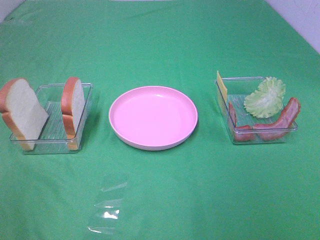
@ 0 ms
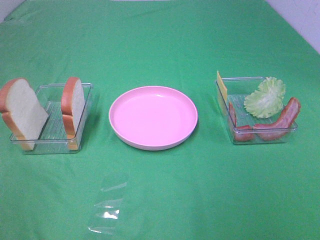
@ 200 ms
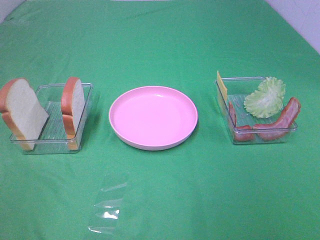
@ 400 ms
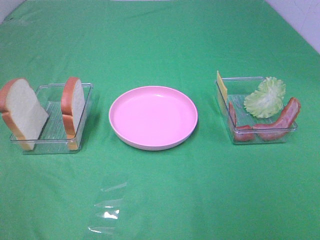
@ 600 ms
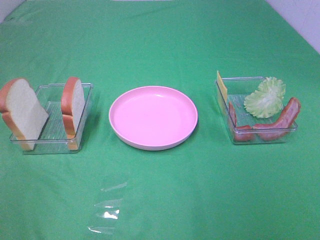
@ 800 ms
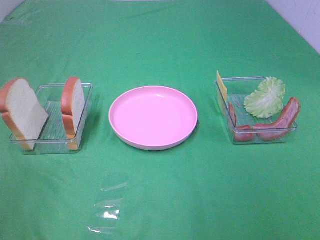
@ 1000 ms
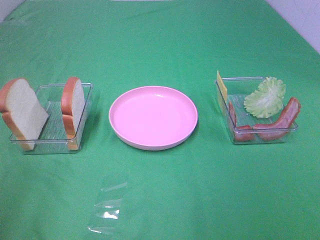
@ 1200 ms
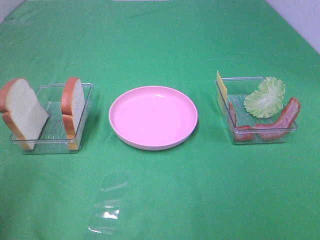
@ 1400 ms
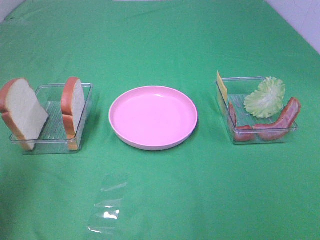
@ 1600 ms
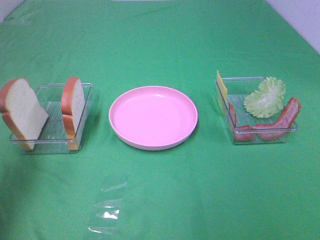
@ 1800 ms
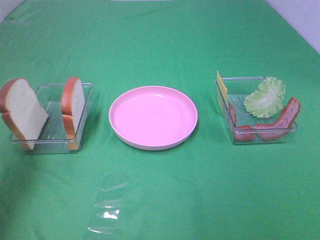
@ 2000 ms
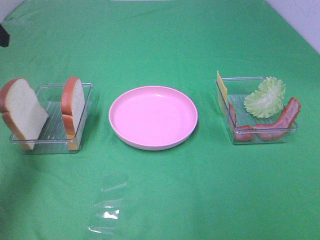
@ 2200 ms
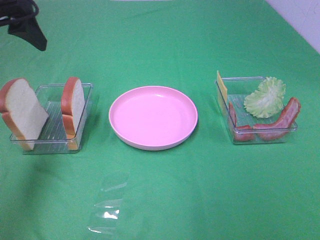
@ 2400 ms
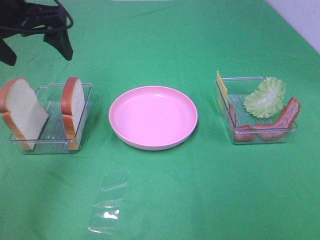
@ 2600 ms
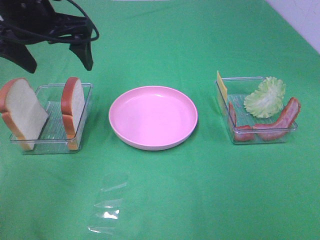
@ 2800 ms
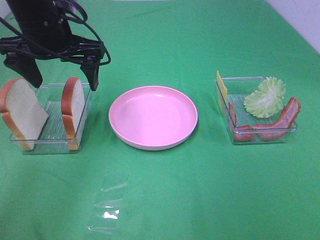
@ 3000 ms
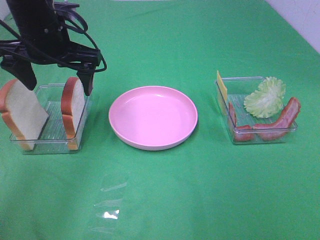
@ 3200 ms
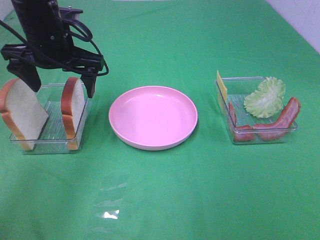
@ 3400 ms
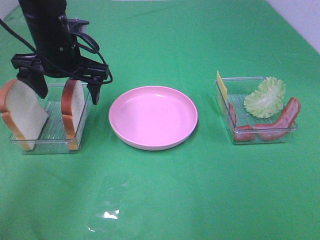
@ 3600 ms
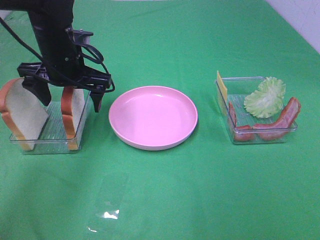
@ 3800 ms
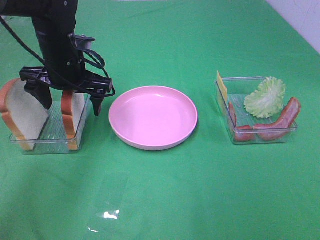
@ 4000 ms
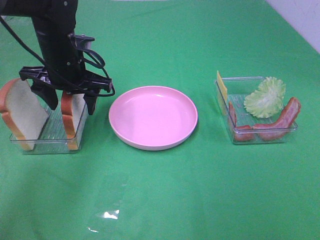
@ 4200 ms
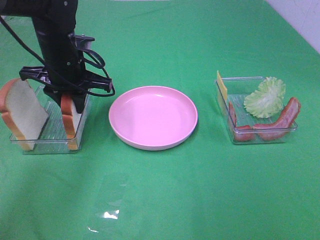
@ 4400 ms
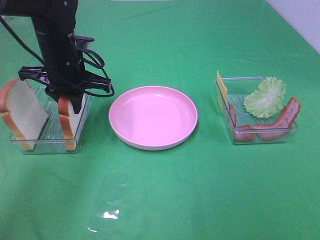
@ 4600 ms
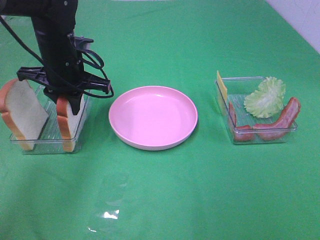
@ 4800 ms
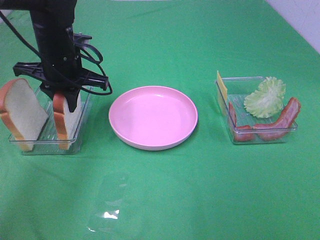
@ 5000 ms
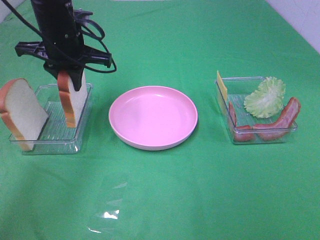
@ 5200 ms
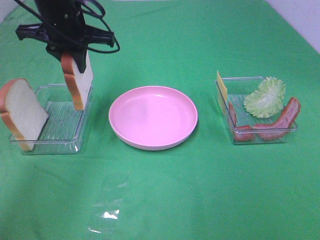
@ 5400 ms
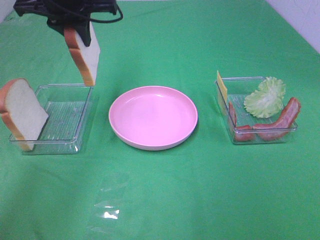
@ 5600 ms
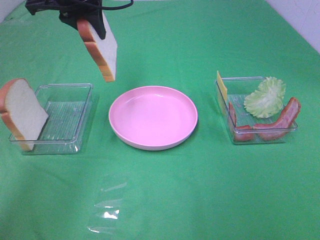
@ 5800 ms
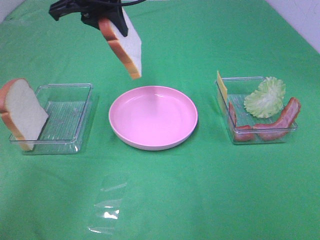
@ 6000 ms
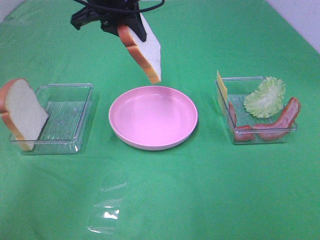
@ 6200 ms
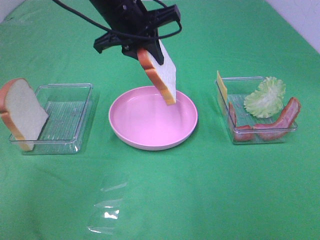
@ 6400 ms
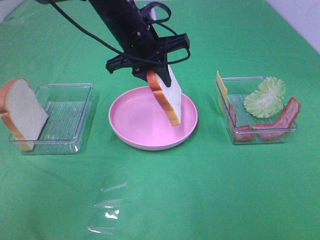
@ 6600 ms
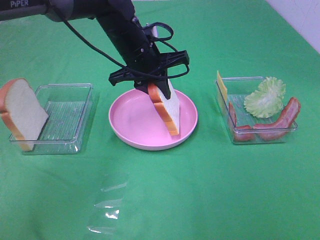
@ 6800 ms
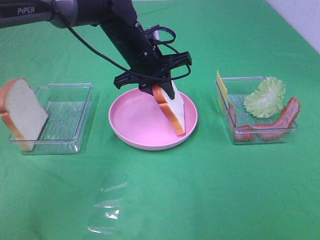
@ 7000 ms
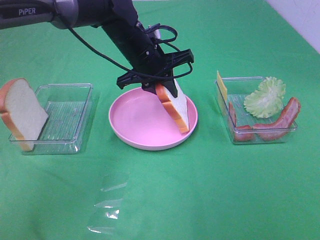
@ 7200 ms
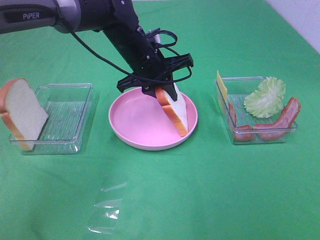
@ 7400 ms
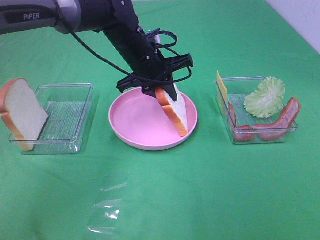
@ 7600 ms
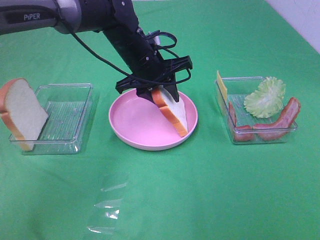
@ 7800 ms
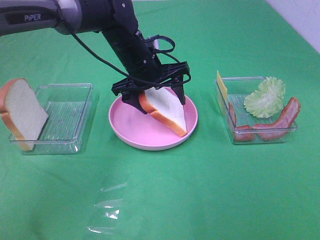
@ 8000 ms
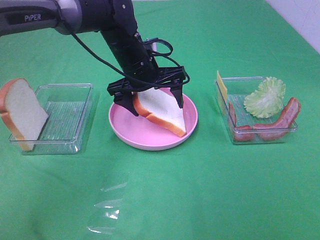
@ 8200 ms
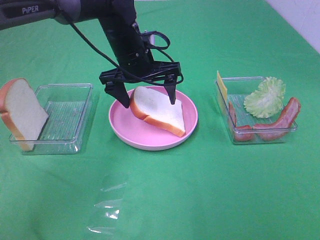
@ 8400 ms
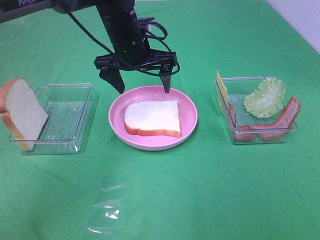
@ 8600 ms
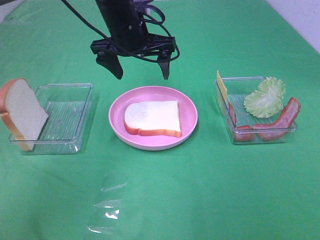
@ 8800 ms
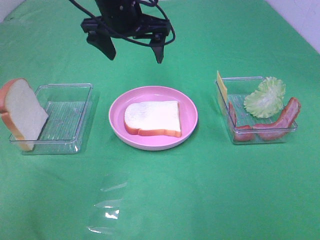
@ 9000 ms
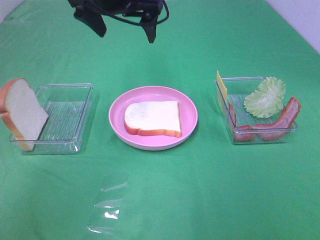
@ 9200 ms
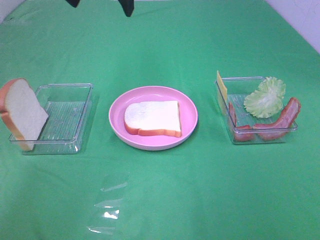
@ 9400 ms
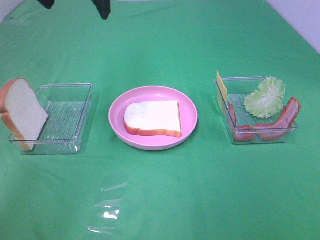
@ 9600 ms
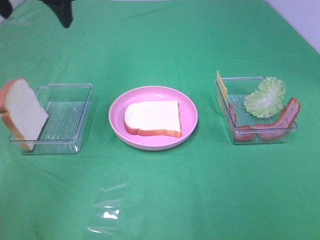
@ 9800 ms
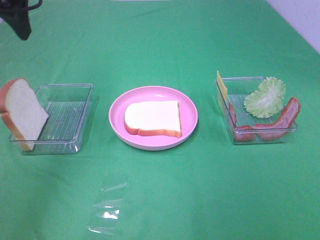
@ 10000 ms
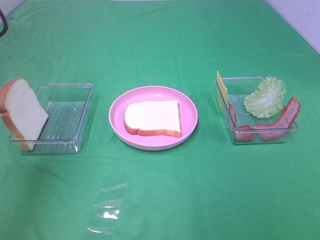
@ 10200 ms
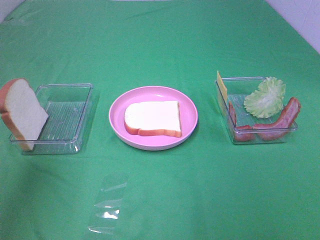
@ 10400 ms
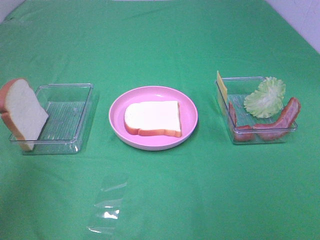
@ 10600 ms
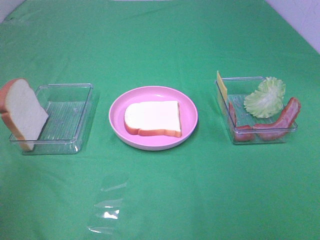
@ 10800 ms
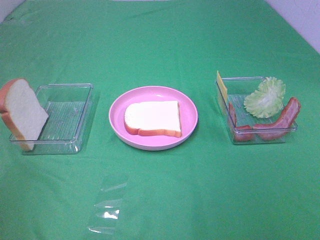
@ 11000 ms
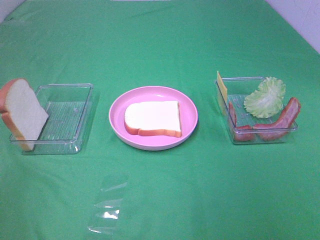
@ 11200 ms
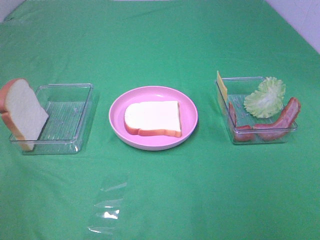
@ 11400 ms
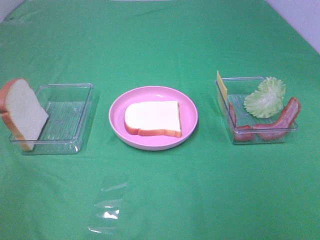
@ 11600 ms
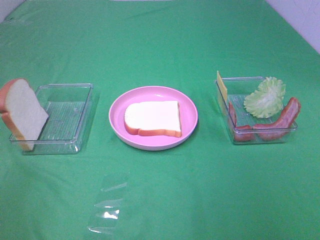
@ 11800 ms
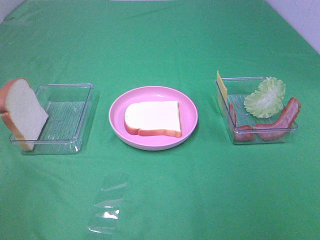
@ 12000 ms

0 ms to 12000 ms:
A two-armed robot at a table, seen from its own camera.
Task of the whole recording: Make sandwiches.
Step, 0 ms to 4600 ms: Left hand:grab the bread slice.
Step, 4800 ms to 8400 ms: Left hand:place the bread slice on the plate.
0 ms to 1600 ms: The left gripper travels forward and upward by roughly 20 cm.
1600 ms to 3000 ms: The left gripper travels forward, to the right and downward by about 25 cm.
3000 ms to 4400 ms: The left gripper travels downward by about 10 cm, and closes.
4400 ms to 6000 ms: The left gripper moves upward, approximately 15 cm.
6000 ms to 7600 ms: The left gripper moves downward and to the right, some 15 cm.
7600 ms to 9000 ms: The left gripper is displaced upward by approximately 10 cm, and opens.
9000 ms to 10400 ms: The left gripper goes some 30 cm backward and to the left.
10400 ms to 12000 ms: The left gripper moves backward and downward, approximately 15 cm.

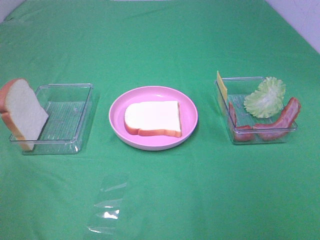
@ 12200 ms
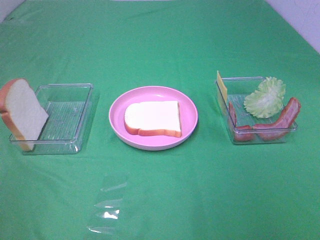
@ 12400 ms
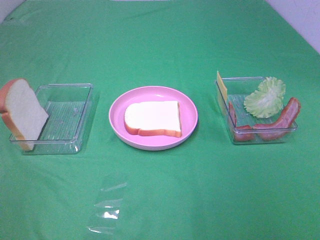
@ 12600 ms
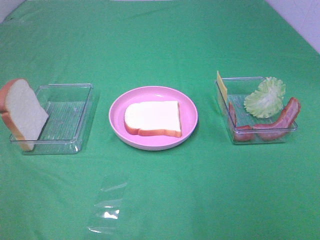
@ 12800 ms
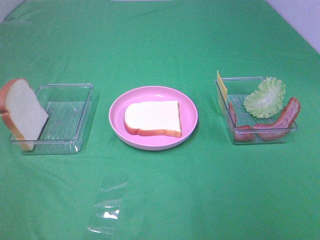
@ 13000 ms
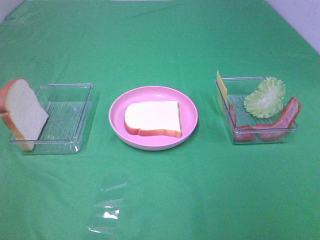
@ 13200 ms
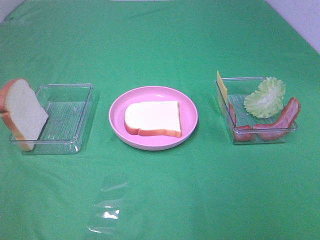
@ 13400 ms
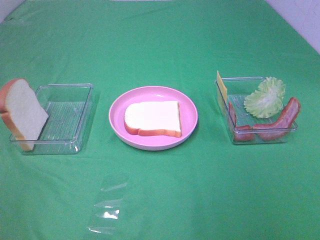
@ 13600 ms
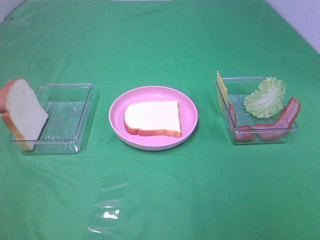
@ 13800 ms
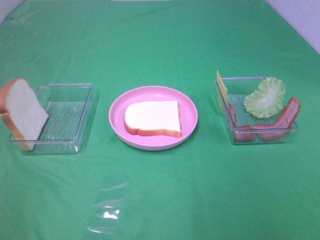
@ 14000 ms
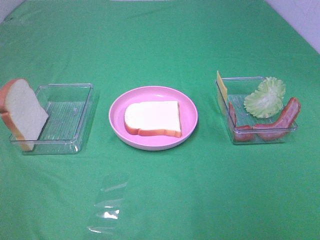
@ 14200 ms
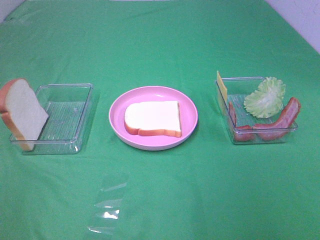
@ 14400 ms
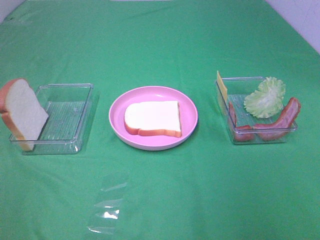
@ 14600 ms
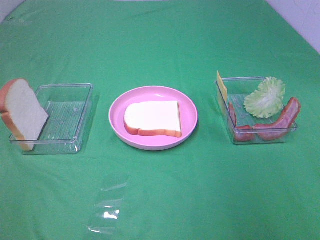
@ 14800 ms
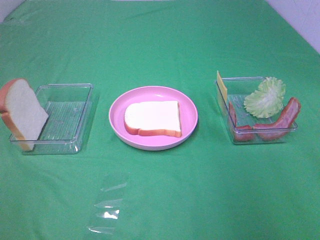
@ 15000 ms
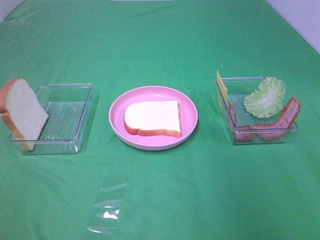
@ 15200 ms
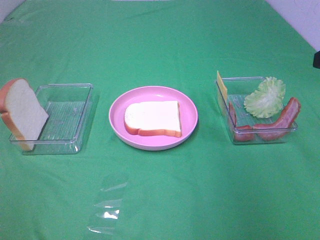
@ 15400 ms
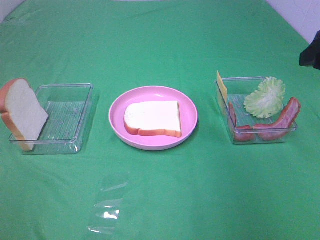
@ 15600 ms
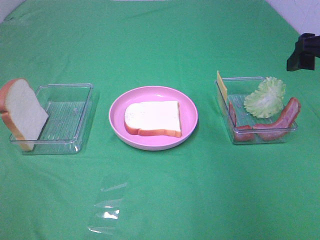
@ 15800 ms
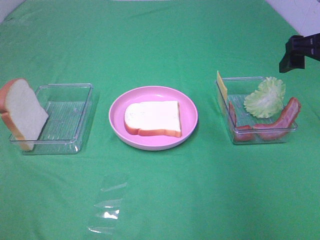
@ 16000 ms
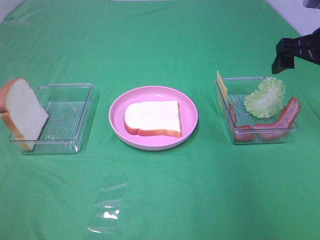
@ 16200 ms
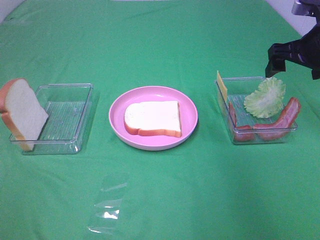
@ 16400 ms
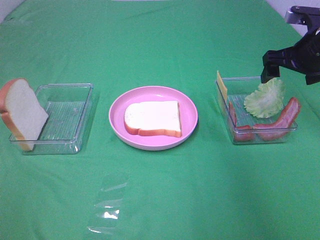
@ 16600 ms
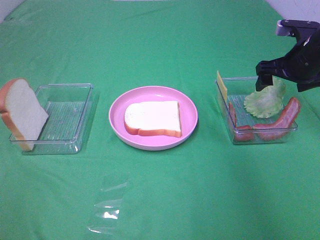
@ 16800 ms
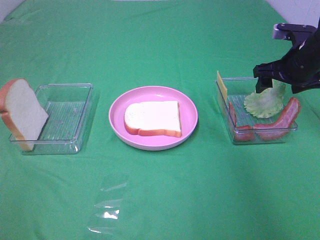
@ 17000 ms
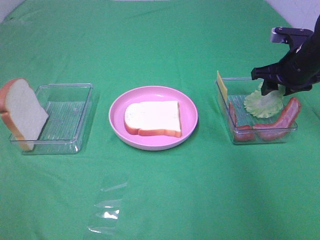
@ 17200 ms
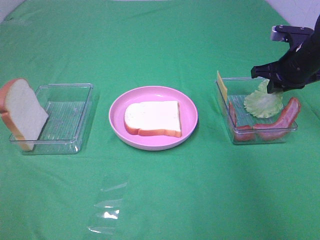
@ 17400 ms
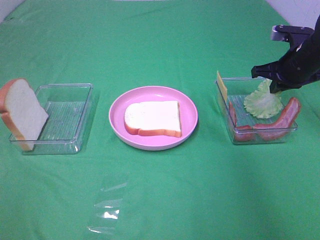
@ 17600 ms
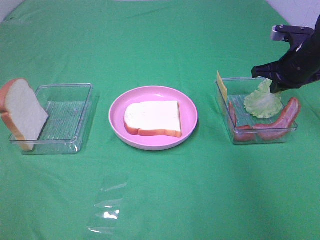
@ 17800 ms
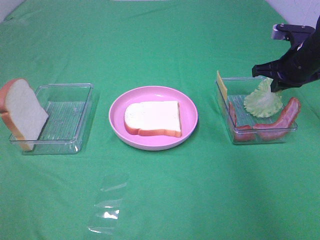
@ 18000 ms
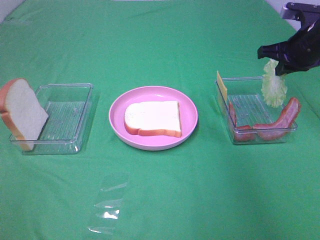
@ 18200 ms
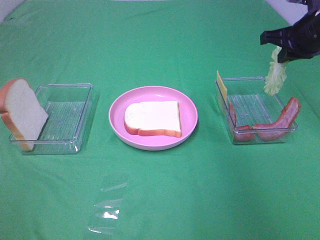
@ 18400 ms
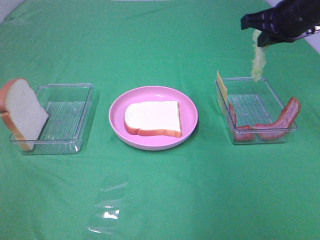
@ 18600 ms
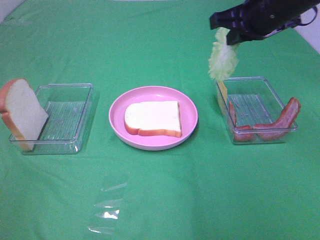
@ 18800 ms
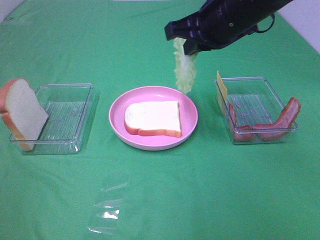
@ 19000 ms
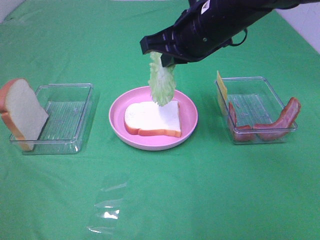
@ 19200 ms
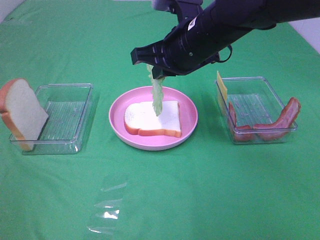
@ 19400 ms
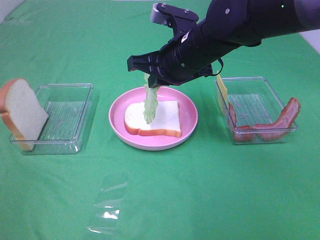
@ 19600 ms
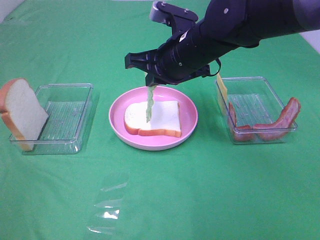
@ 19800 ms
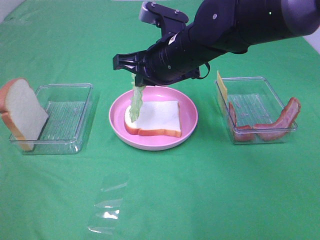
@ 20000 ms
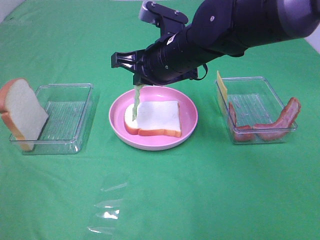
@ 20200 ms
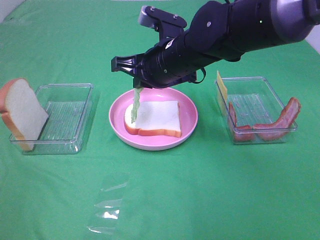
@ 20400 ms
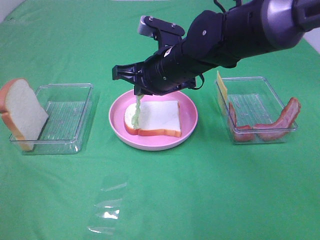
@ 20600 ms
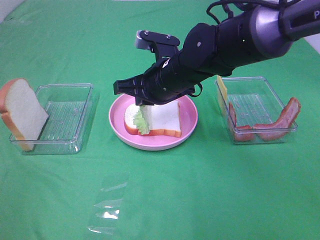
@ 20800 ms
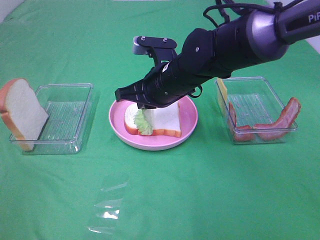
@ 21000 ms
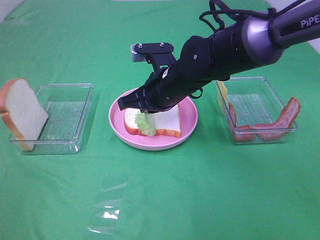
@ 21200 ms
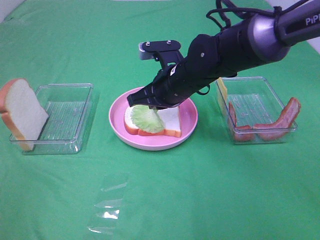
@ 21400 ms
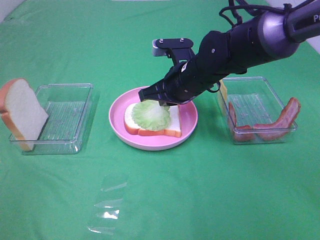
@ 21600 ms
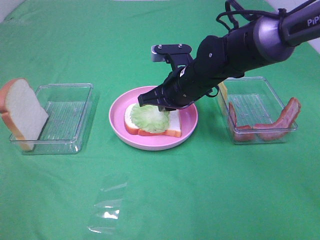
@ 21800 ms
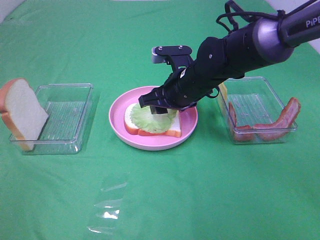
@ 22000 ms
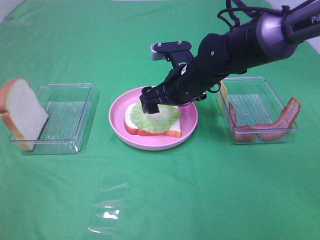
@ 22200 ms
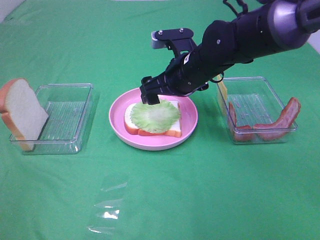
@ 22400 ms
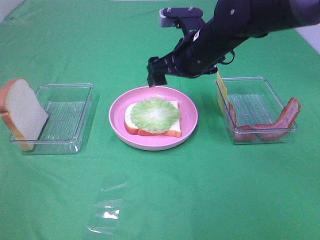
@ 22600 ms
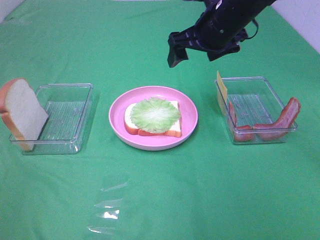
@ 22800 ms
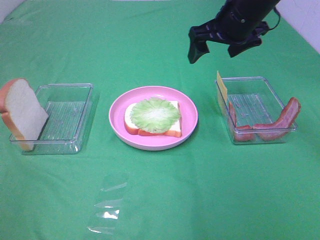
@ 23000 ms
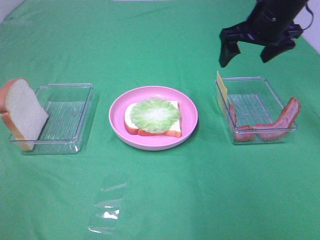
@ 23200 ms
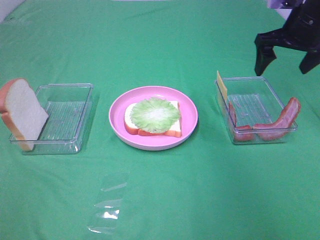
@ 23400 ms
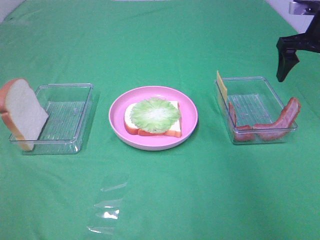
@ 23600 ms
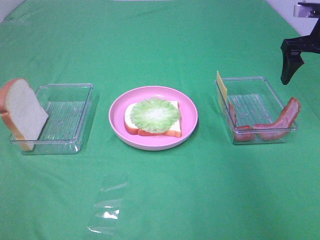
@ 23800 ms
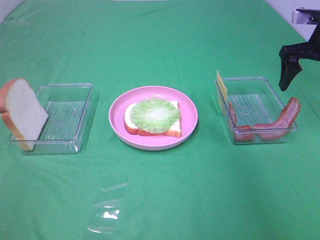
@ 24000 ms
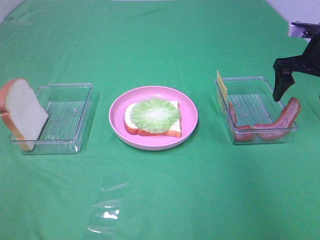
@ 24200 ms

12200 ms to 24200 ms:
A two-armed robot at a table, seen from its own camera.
Task of the whole recording: Make sandwiches.
Step, 12200 ms to 17600 ms: Right hand:grab the lettuce slice.
Step, 17800 ms to 22200 ms: Right hand:place the lettuce slice on the bread slice.
15200 ms to 16600 ms: The right gripper travels forward and downward by some 25 cm.
16600 ms to 18200 ms: The right gripper closes its fingers.
18200 ms to 19800 ms: The right gripper travels to the left by approximately 25 cm.
19800 ms to 21200 ms: The right gripper moves downward, roughly 5 cm.
21200 ms to 22600 ms: The right gripper shifts some 10 cm upward and to the right, and opens its fingers.
22600 ms to 24200 ms: The right gripper goes about 25 cm to the right.